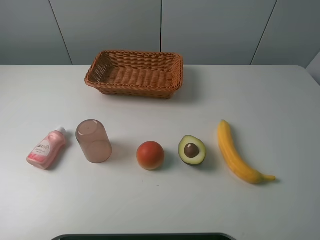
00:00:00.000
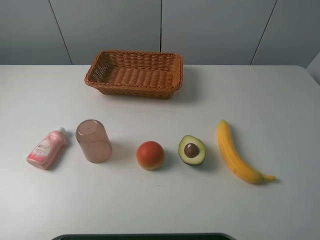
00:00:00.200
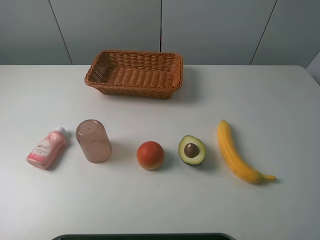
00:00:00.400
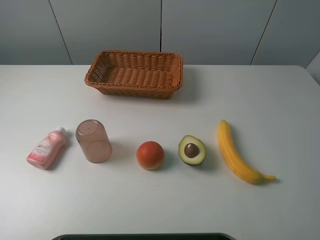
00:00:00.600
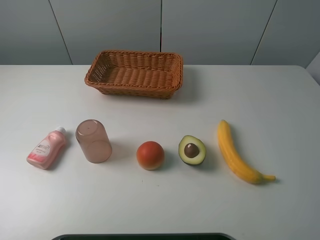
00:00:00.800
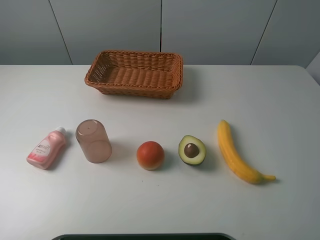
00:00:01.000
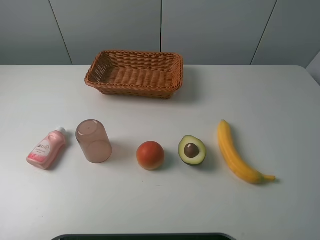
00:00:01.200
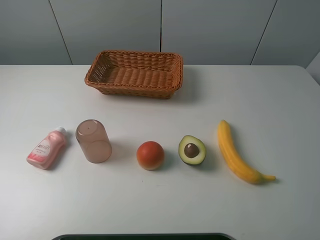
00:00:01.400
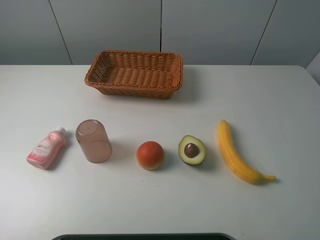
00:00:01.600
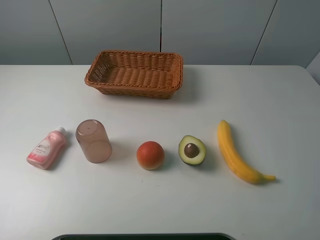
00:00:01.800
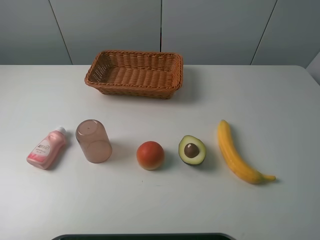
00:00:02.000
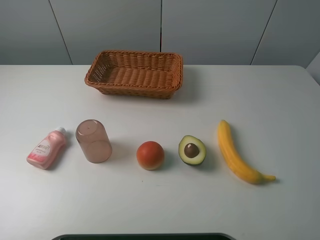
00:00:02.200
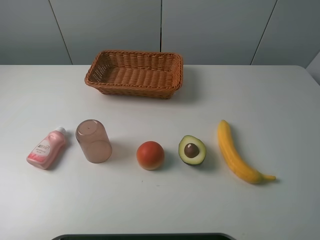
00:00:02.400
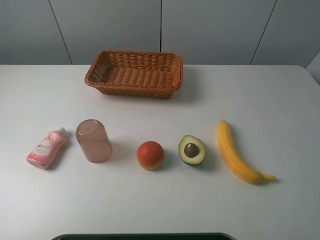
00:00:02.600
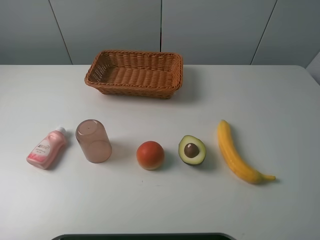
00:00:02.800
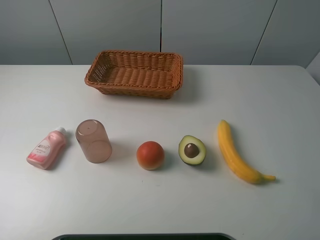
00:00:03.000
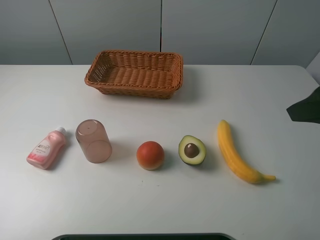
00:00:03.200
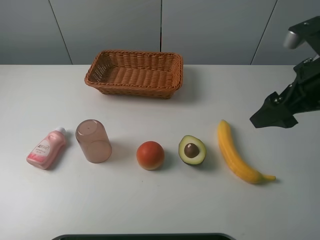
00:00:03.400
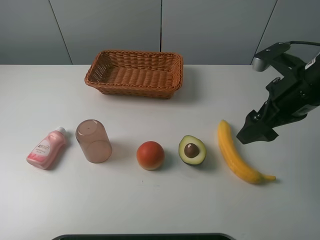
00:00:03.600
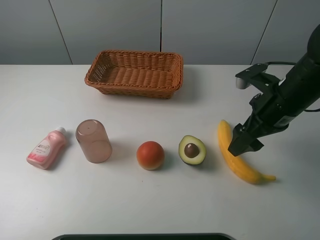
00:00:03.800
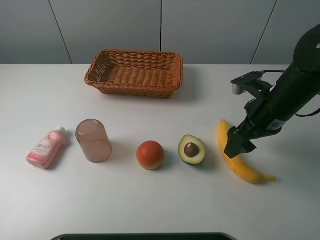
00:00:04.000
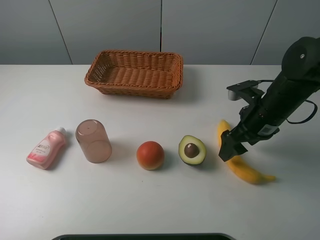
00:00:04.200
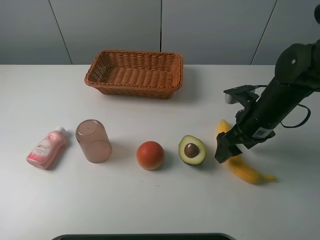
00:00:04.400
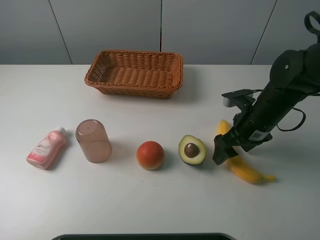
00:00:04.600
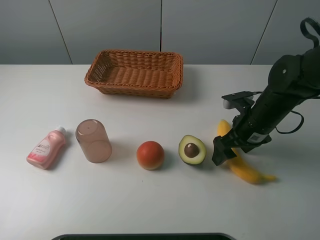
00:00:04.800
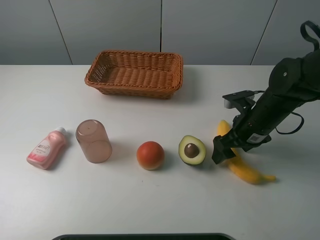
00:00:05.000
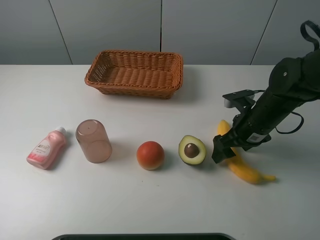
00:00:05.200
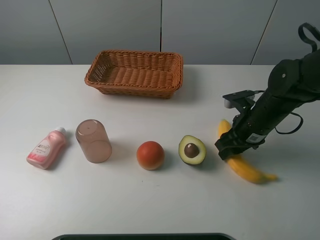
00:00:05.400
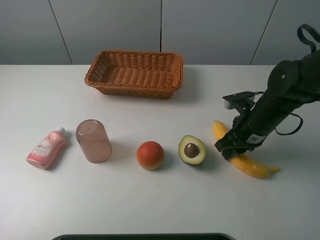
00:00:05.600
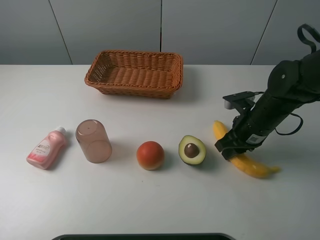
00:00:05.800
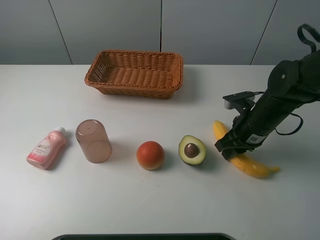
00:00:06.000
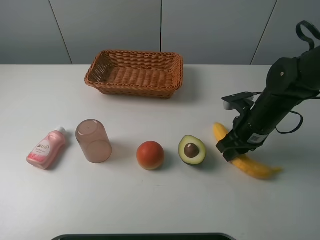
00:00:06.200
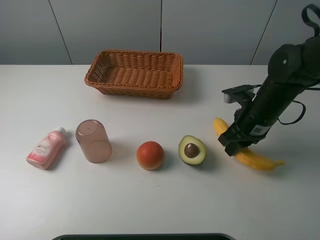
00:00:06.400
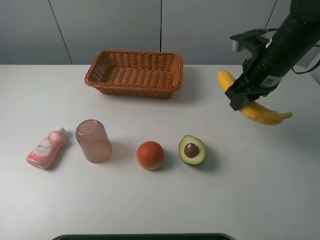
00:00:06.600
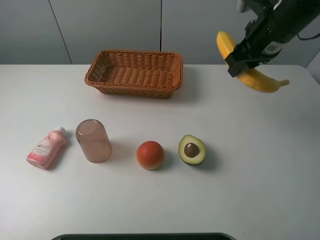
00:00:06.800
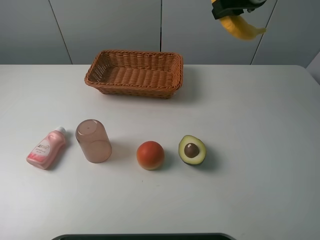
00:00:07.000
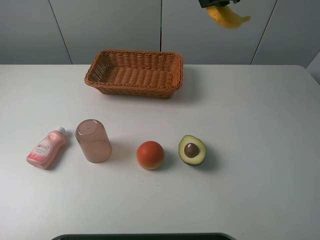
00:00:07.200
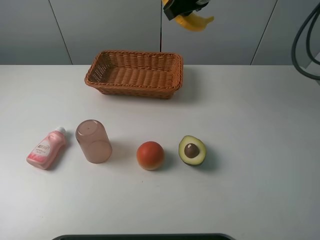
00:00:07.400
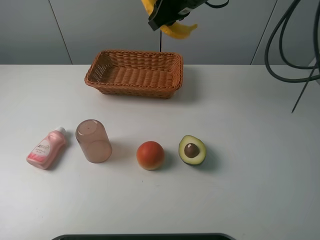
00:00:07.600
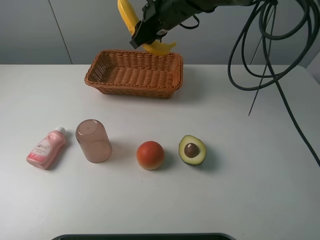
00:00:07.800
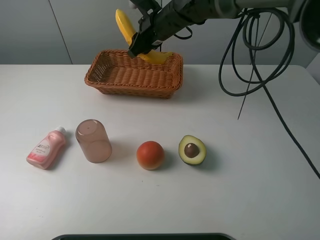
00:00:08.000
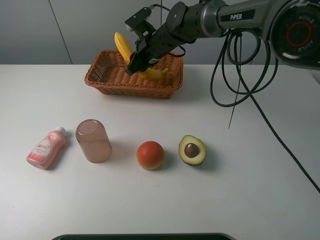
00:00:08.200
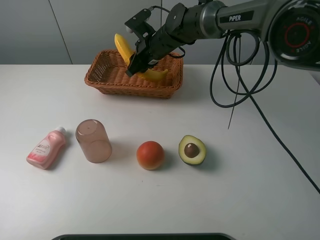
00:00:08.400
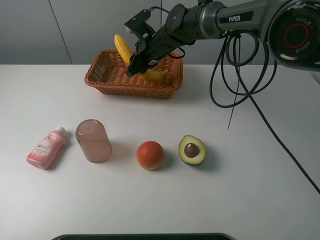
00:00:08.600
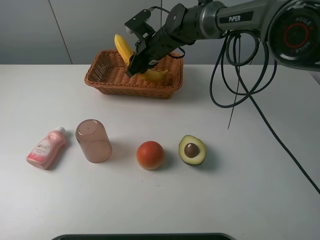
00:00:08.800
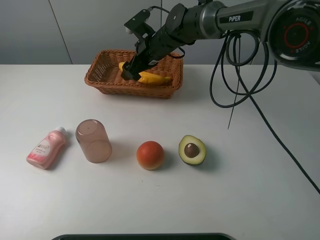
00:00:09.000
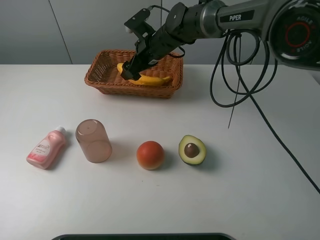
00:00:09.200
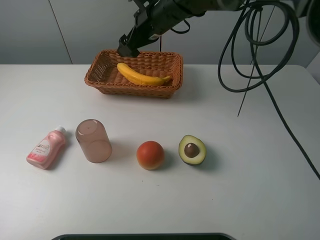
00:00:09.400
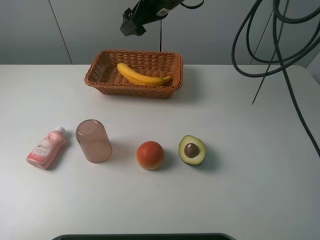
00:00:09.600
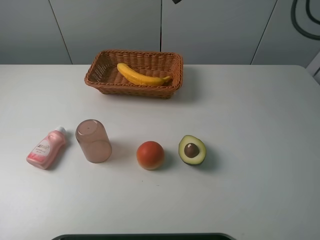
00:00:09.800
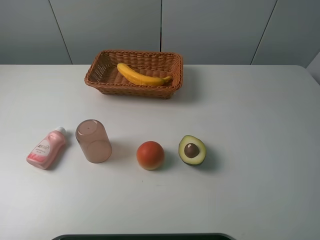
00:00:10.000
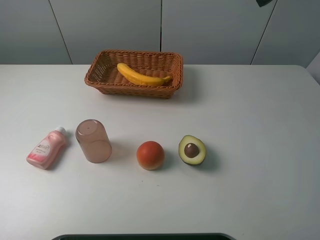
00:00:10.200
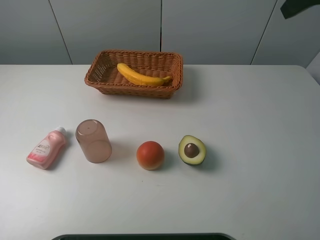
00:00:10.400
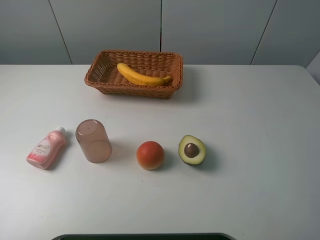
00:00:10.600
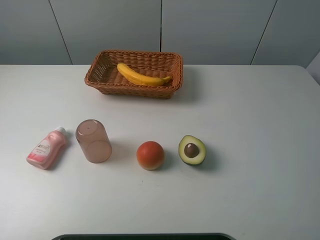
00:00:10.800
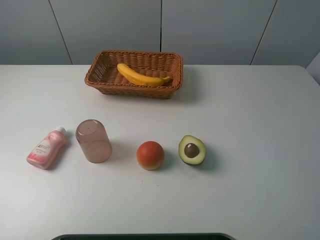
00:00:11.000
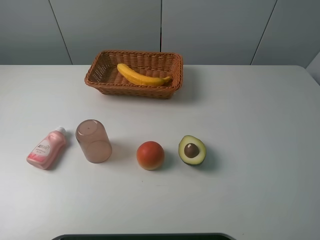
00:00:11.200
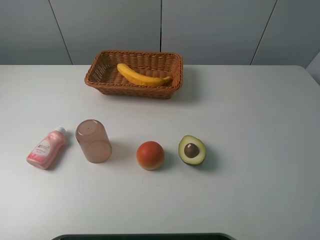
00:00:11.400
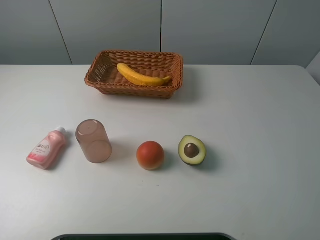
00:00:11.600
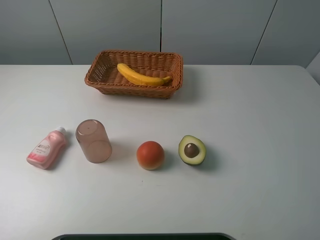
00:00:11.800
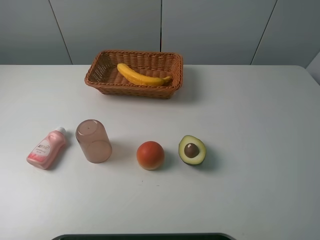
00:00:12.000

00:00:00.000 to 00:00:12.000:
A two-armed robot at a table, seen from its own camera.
Task of the whole recording: randomly pick up an item from the table and put it in the basket.
Step, 00:00:00.000 to 00:00:06.000: Grasp the banana with the right gripper.
Step, 00:00:06.200 to 00:00:09.400: Place the banana into the basket with the right gripper.
00:00:00.000 to 00:00:01.600: Neither gripper changes place.
00:00:03.000 to 00:00:04.400: The right gripper goes some 25 cm downward and forward.
00:00:04.400 to 00:00:06.000: The right gripper closes its fingers.
00:00:06.000 to 00:00:07.600: The right gripper travels upward, forward and to the left by approximately 25 cm.
00:00:07.600 to 00:00:09.000: The right gripper is displaced downward by some 10 cm, and opens.
00:00:09.000 to 00:00:10.400: The right gripper shifts about 40 cm to the right, upward and backward.

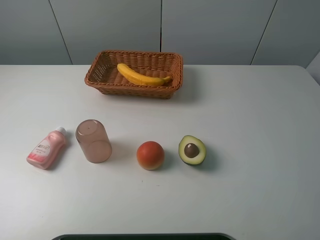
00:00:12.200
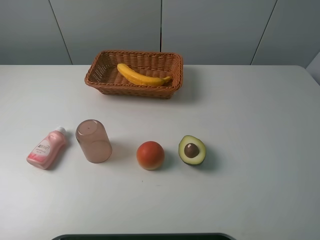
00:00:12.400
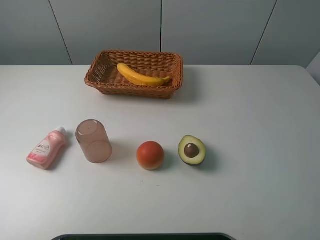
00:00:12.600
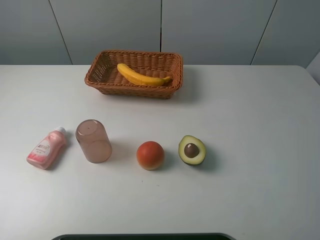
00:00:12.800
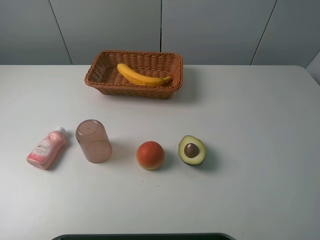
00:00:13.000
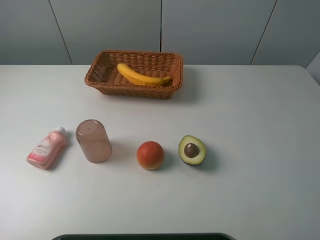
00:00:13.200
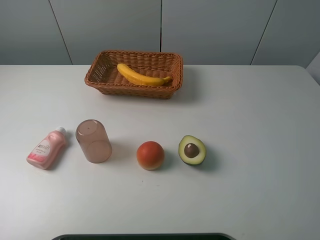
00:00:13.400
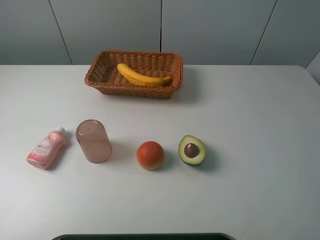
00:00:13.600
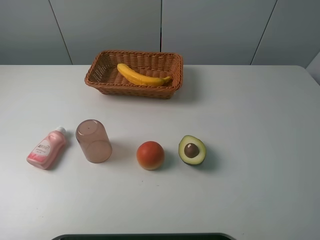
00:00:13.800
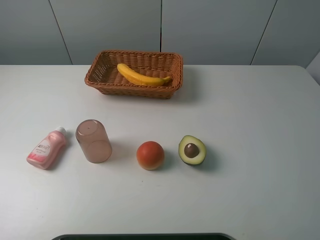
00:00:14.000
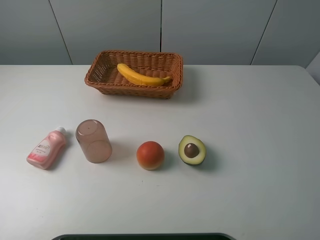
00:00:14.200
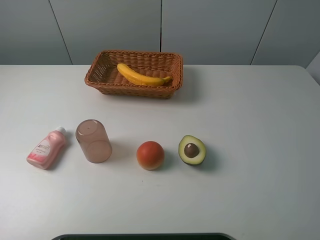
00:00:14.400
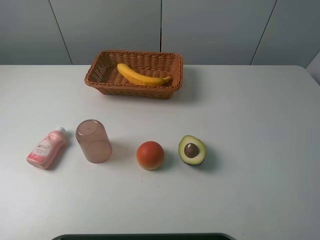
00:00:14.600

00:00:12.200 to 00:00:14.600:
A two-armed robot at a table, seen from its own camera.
Task of the whole recording: randomly pick up an item from the table and put it in the basket.
00:00:12.200 to 00:00:14.600: The two grippers keep their place.

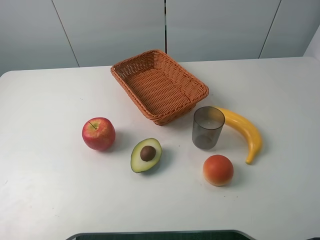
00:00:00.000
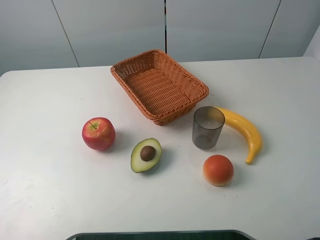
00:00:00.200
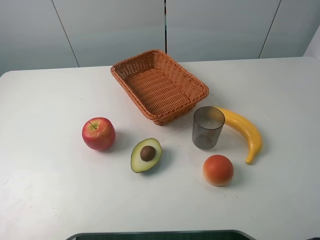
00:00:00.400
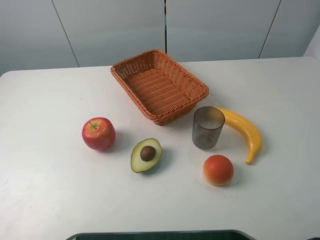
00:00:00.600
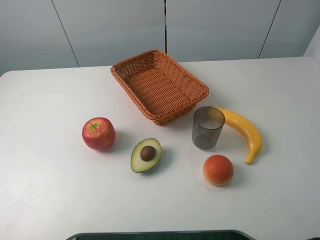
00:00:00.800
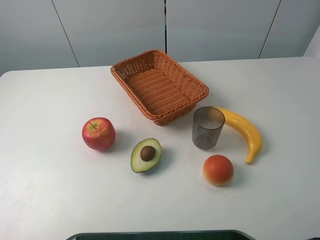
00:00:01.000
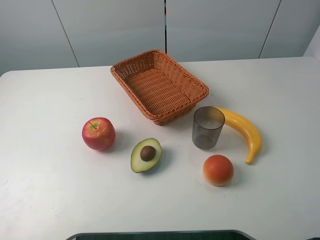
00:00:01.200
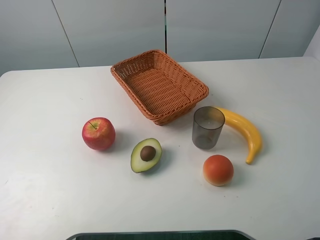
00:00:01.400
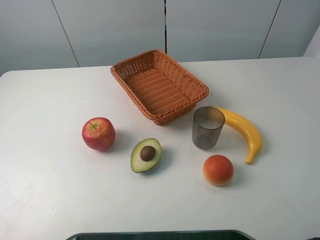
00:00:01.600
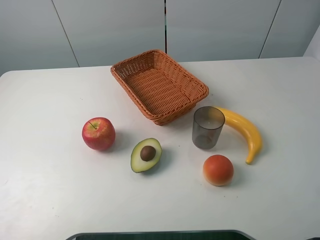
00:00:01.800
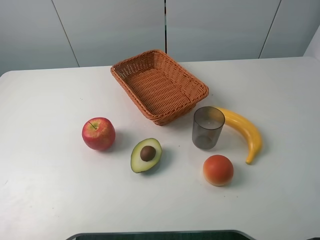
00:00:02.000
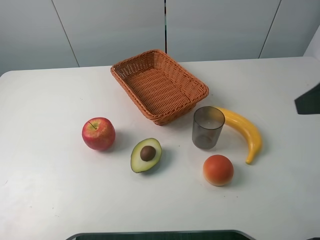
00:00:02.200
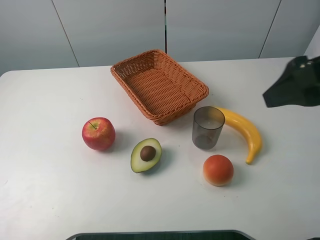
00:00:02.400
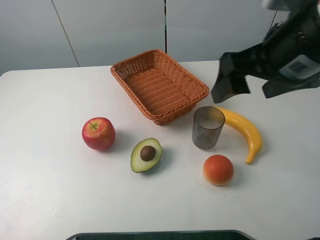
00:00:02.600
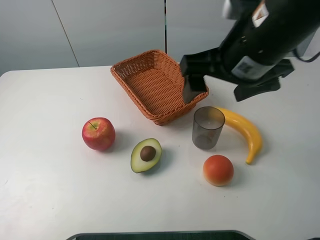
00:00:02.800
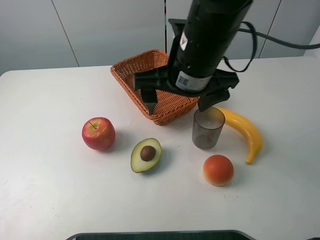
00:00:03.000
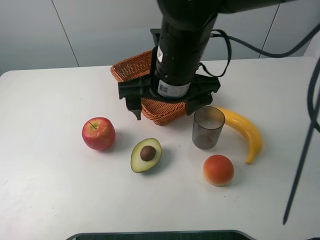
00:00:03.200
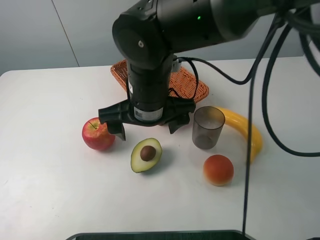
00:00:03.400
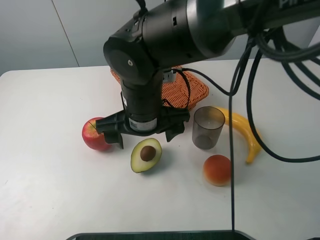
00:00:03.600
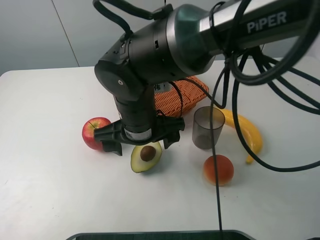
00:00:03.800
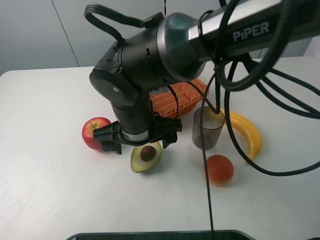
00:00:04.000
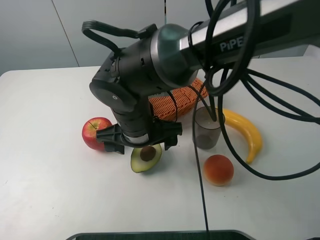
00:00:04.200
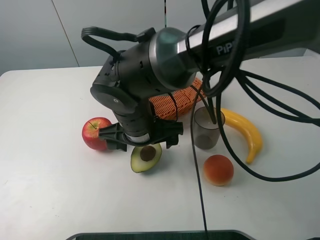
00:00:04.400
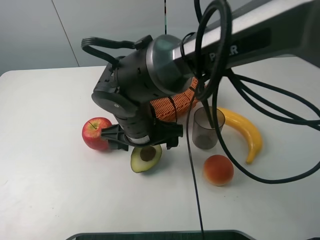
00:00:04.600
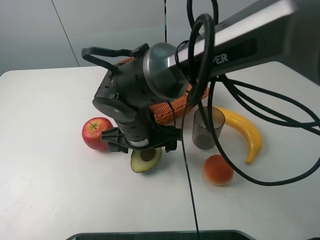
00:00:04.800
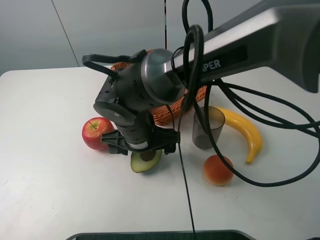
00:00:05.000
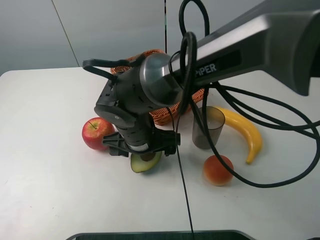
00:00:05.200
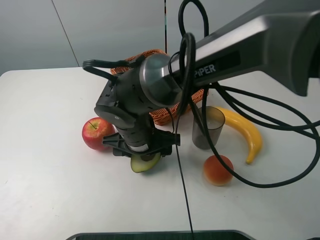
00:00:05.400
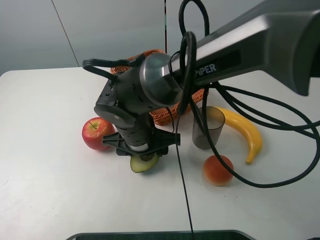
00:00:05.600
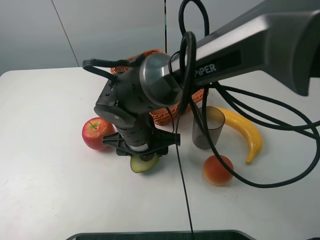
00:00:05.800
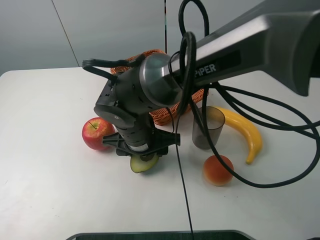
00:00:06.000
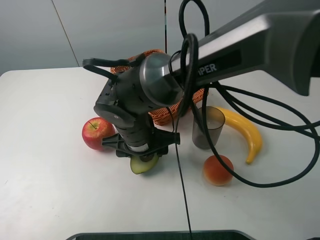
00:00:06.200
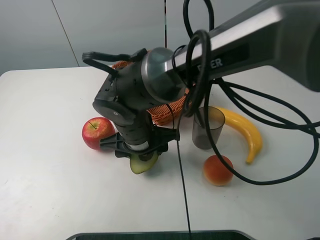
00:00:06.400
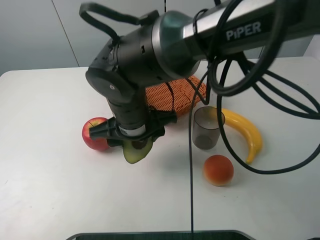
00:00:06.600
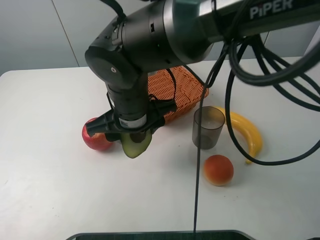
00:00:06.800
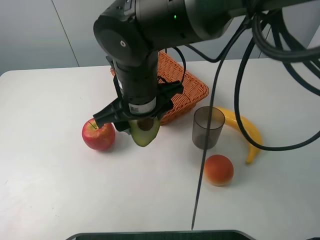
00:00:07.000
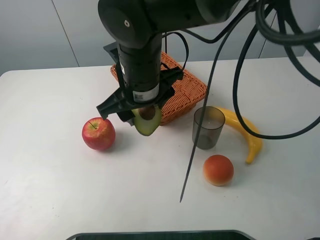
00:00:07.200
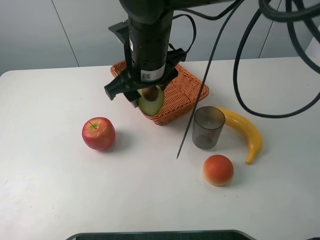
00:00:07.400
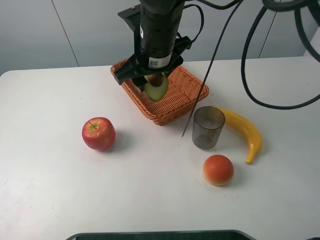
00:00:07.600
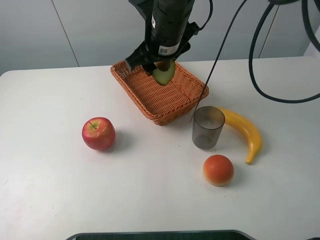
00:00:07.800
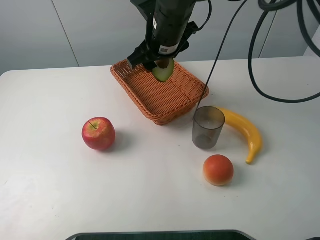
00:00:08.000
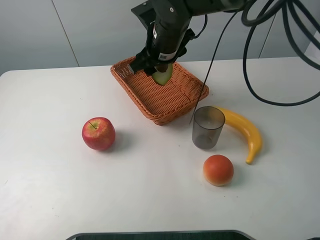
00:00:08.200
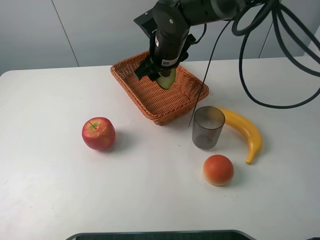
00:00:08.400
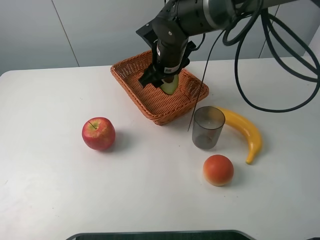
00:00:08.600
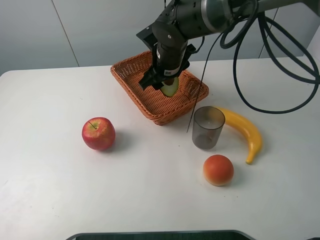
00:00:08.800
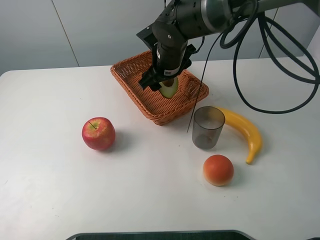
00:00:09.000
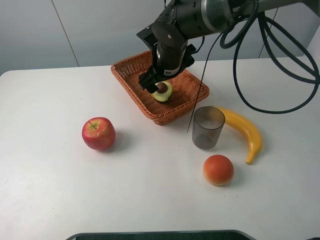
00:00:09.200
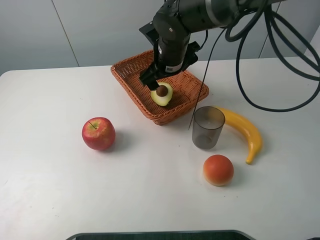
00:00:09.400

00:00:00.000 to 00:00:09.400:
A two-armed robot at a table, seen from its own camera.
Task of the whole recording: randomly pick up an item from the table and put it in the basket.
Step, 00:00:00.000 to 00:00:05.600: Grasp the avocado with the right gripper.
00:00:00.000 to 00:00:01.600: Both grippers stay put.
00:00:01.600 to 00:00:03.200: The right gripper goes some 35 cm to the left and forward.
00:00:03.200 to 00:00:04.800: The right gripper is displaced downward and to the left by approximately 15 cm.
00:00:04.800 to 00:00:06.200: The right gripper closes its fingers.
00:00:06.200 to 00:00:07.800: The right gripper heads upward, forward and to the right, covering approximately 20 cm.
00:00:07.800 to 00:00:09.400: The right gripper travels downward by approximately 5 cm, and opens its fingers.
